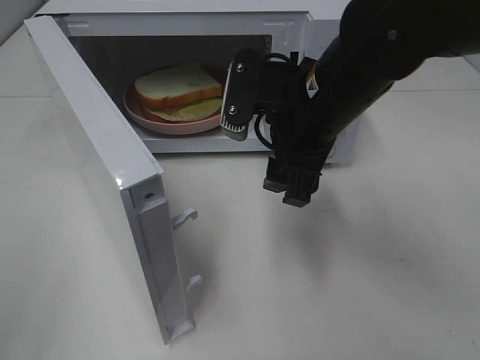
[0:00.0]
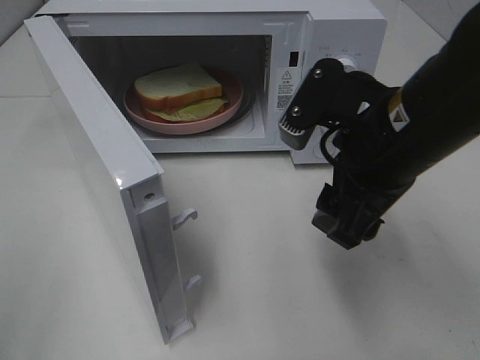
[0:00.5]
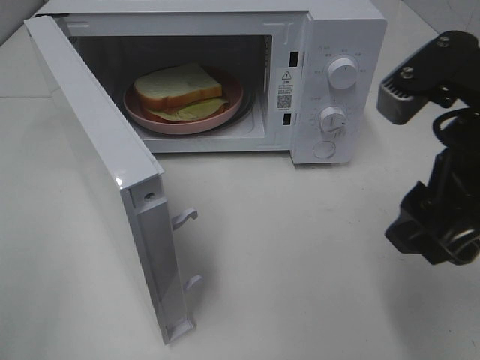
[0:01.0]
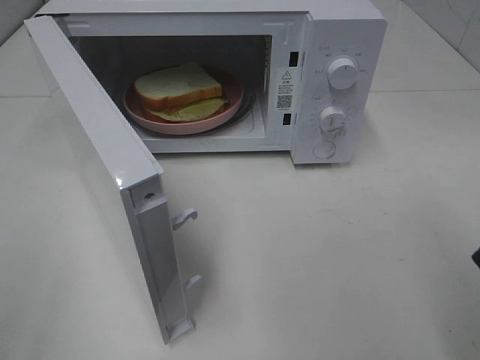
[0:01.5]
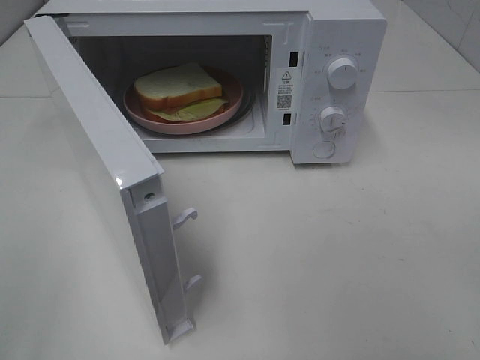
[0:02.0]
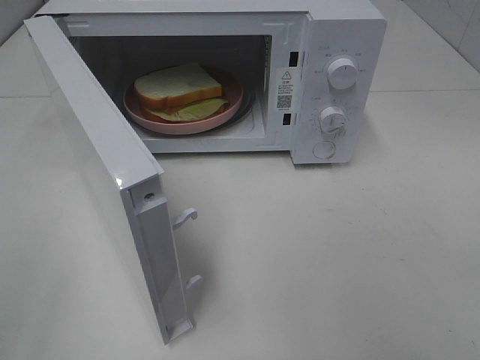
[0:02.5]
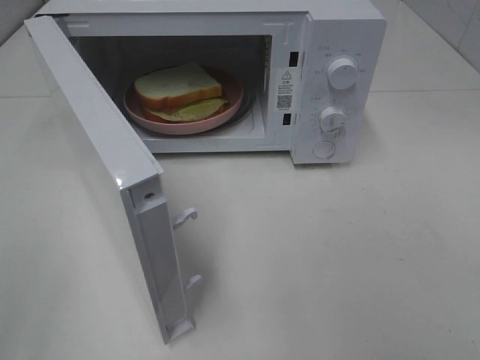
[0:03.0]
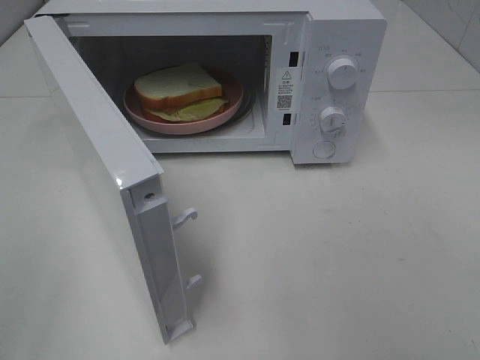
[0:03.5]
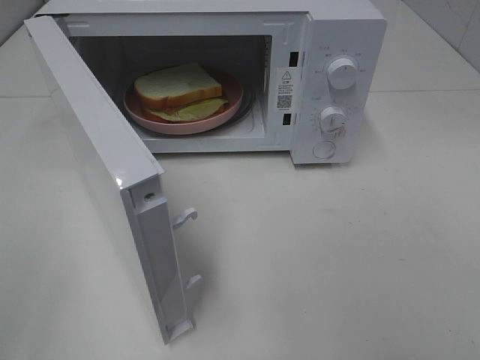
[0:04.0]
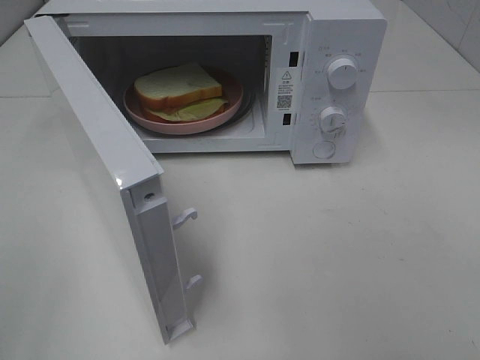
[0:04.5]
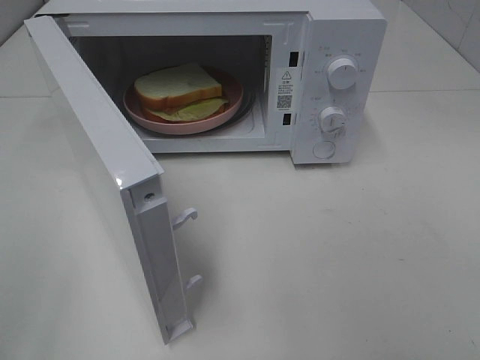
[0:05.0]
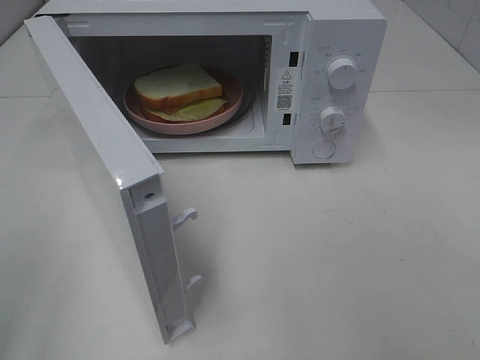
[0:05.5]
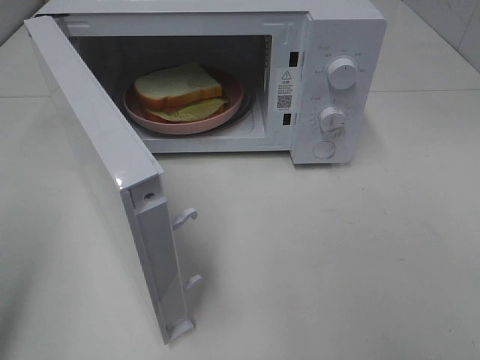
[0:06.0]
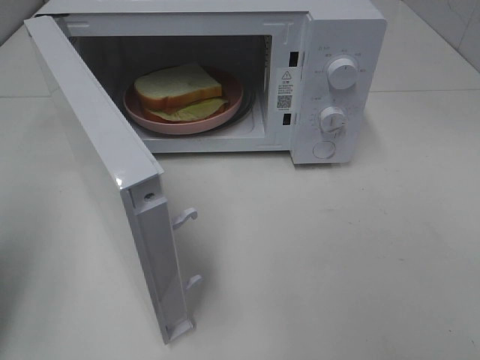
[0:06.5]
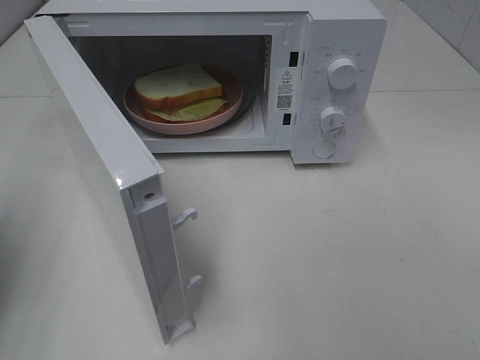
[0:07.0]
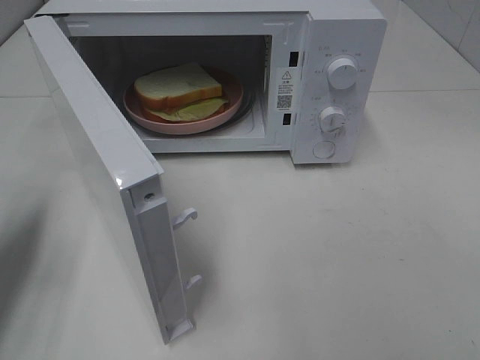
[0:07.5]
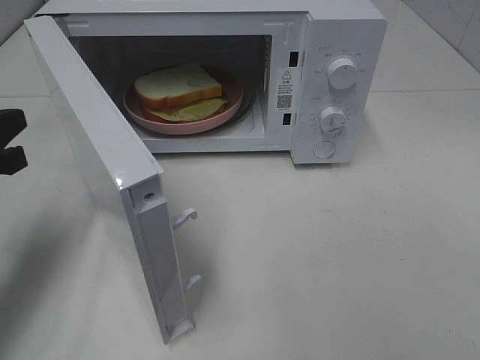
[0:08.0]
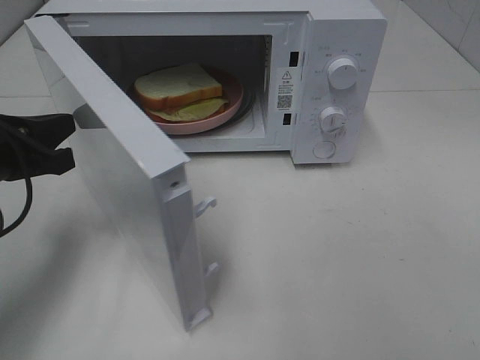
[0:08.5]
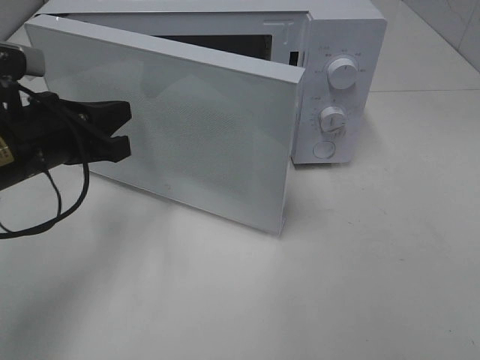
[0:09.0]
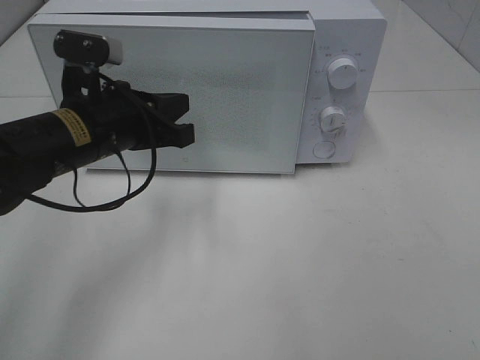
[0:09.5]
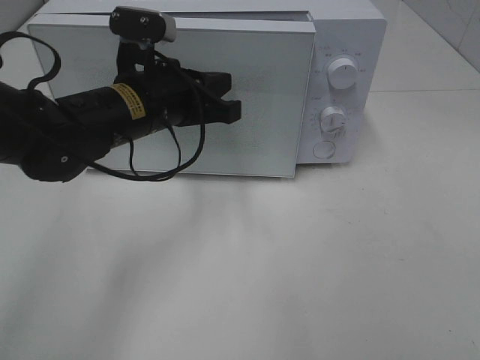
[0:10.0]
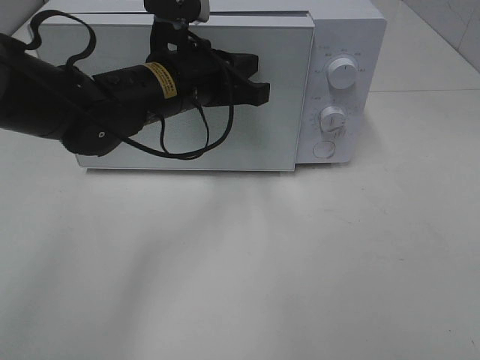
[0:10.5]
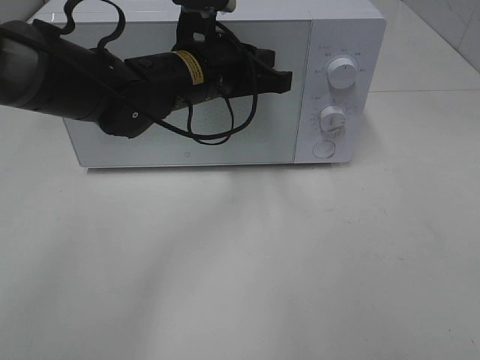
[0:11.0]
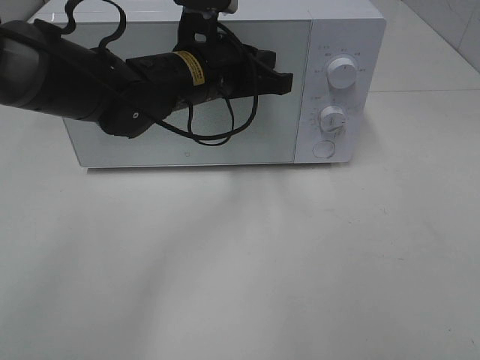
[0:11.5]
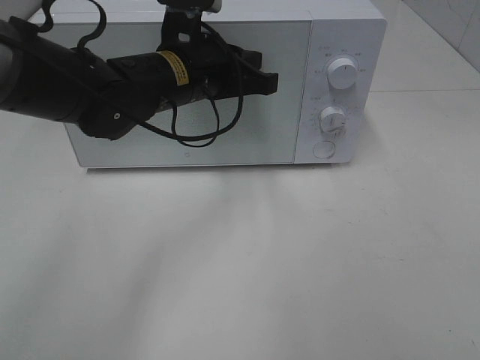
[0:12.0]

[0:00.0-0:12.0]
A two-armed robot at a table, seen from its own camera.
Task of the whole recording: Heat Sandwich.
0:00.0 to 0:02.0: The right gripper goes approximately 25 cm backward and to the right.
0:06.0 to 0:08.0: The left gripper is displaced forward and downward by approximately 20 cm, and closes up.
0:08.0 to 0:10.0: The left gripper heads to the right and forward, covering approximately 20 cm.
0:10.0 to 0:12.0: The left gripper changes place by about 5 cm.

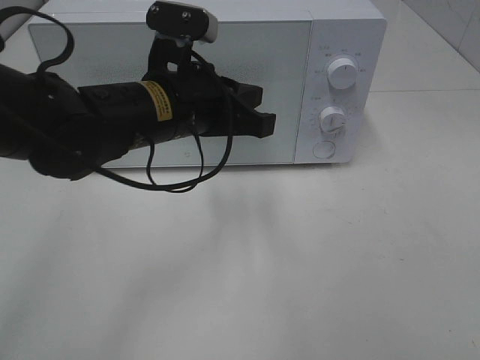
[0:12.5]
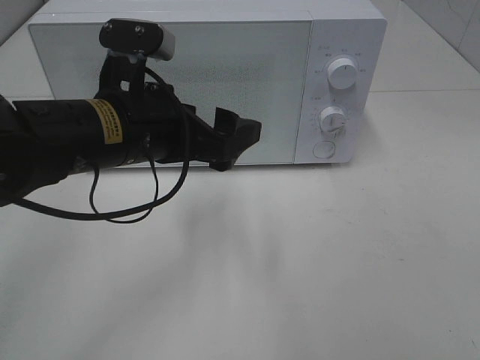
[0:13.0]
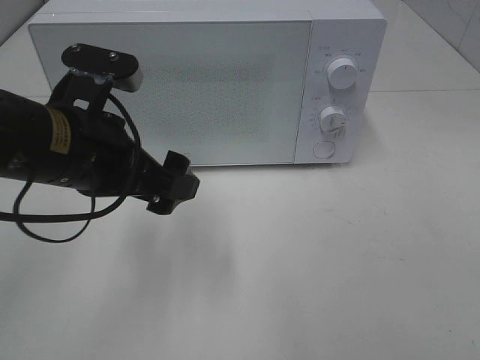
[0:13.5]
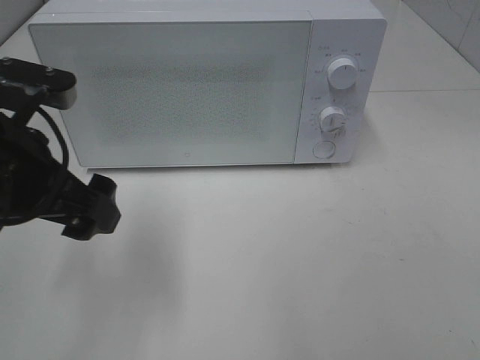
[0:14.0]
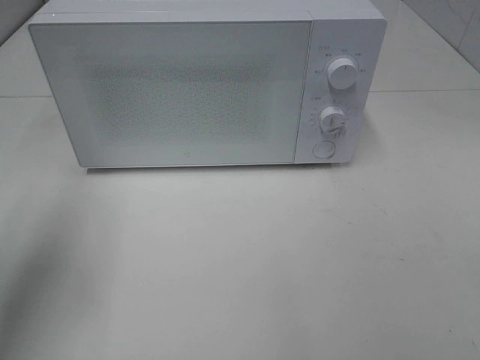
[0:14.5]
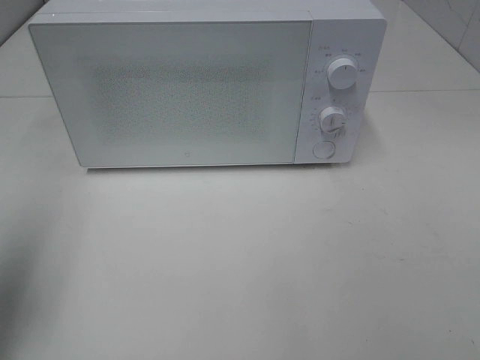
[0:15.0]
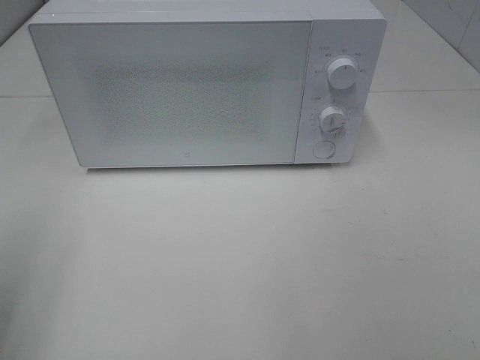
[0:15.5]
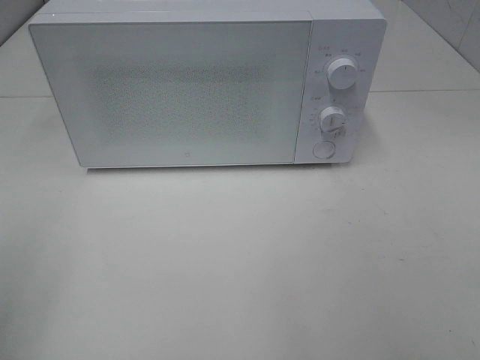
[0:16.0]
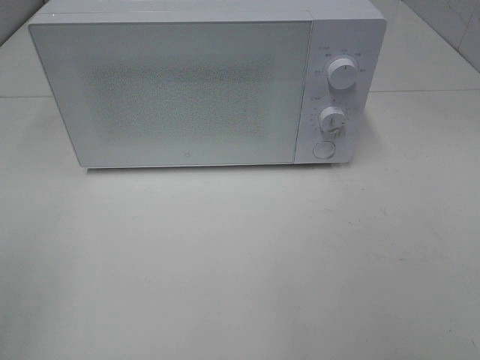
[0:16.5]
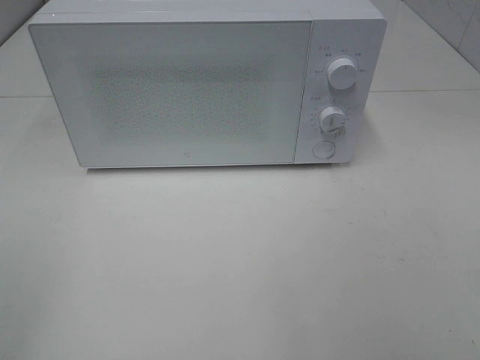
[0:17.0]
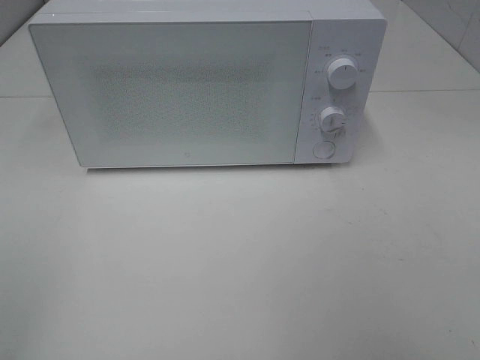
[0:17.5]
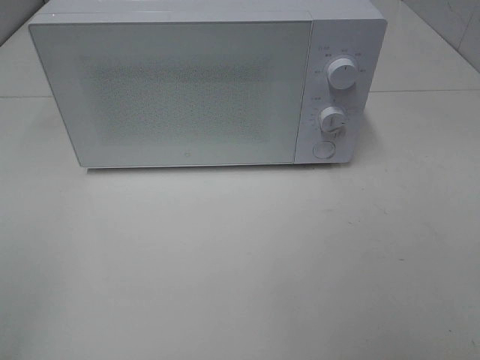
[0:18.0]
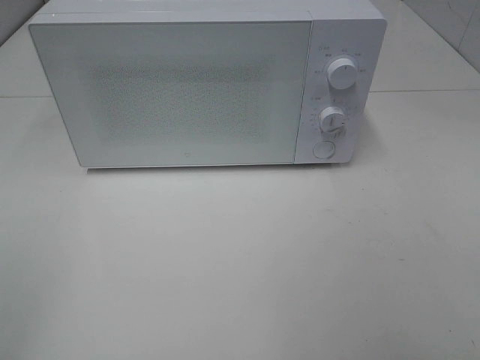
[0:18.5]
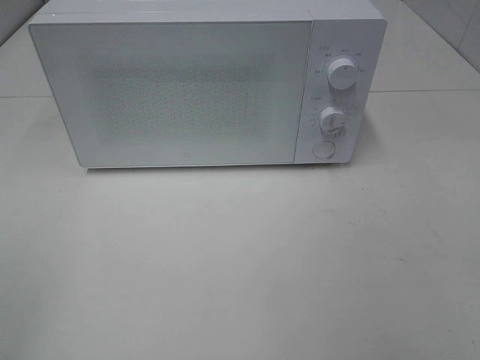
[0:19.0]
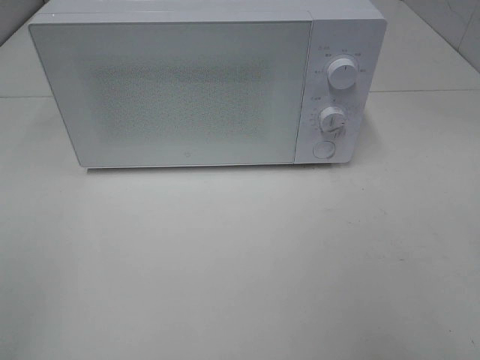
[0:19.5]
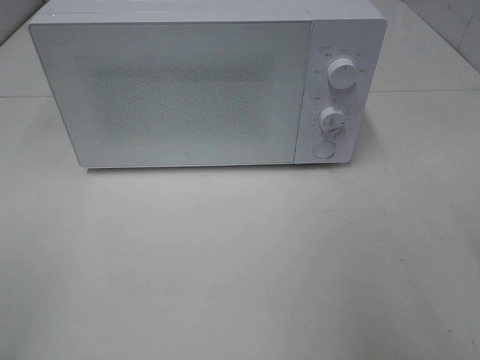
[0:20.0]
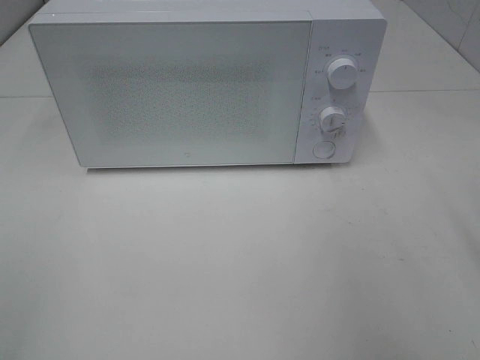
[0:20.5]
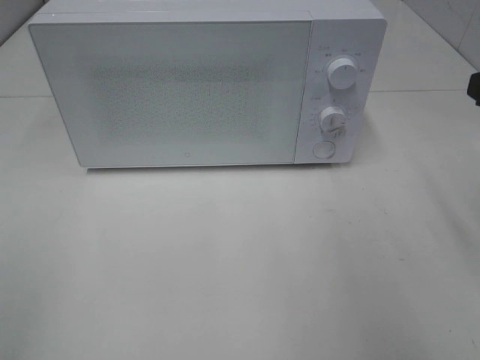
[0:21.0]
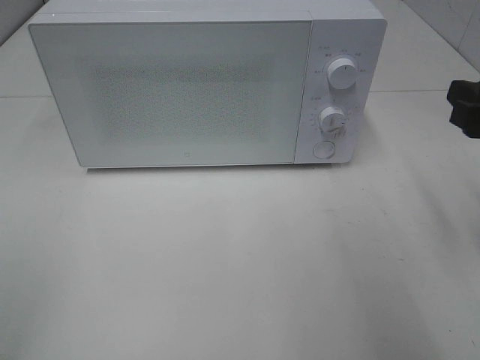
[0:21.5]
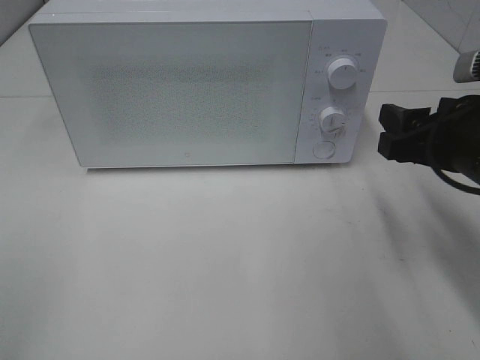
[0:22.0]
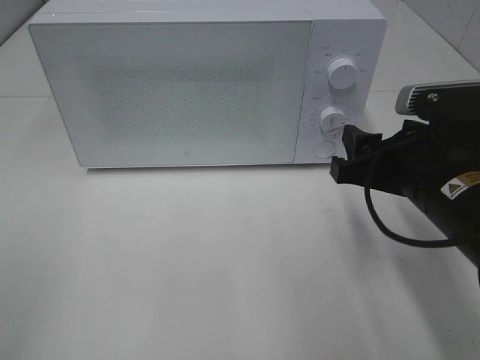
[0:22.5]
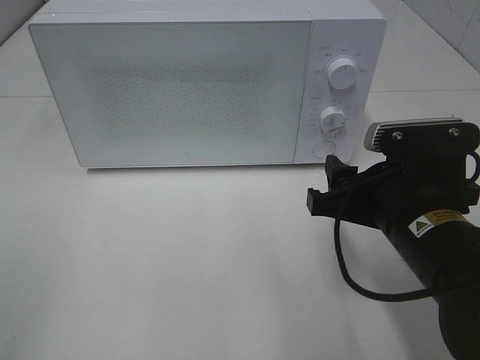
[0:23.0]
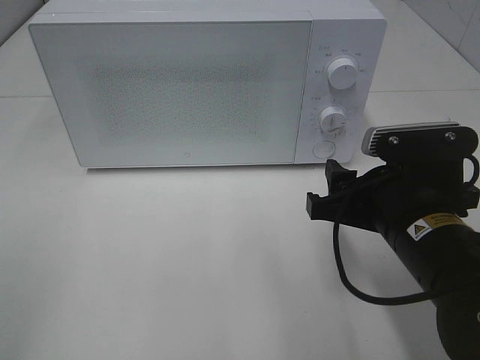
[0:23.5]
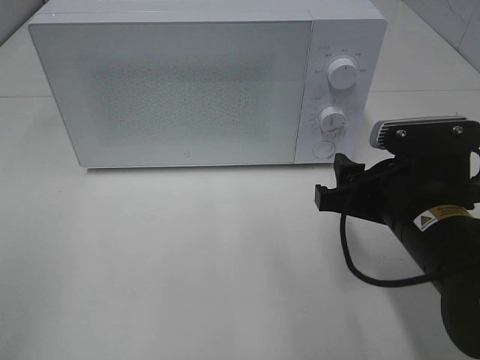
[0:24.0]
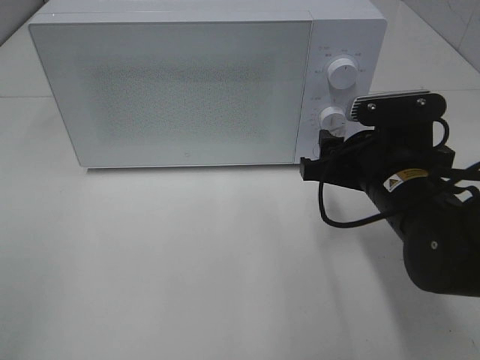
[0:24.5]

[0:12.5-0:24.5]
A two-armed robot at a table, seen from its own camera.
Task of the whole recording: Heat Sandwich.
0:12.5 to 0:14.5: The left gripper moves to the left and backward, about 25 cm, and opens up.
0:14.5 to 0:16.5: The left gripper moves backward, approximately 15 cm.
0:20.5 to 0:22.5: The right gripper goes some 15 cm downward, to the left and forward.
0:22.5 to 0:24.5: The right gripper shifts by approximately 5 cm.

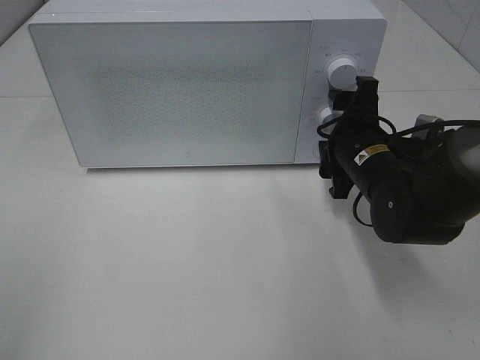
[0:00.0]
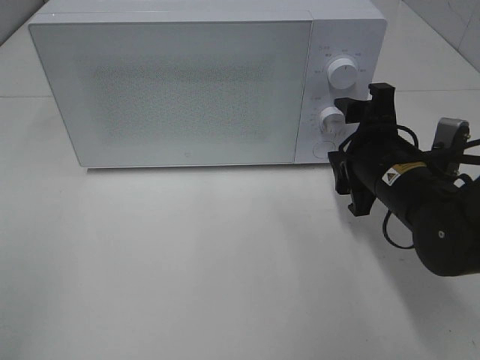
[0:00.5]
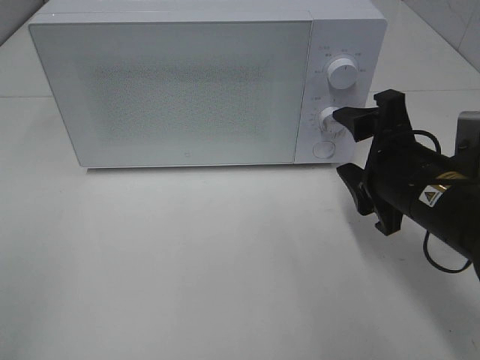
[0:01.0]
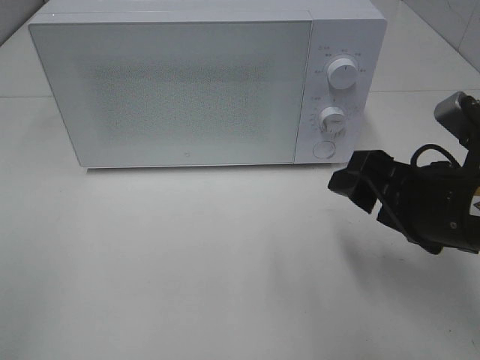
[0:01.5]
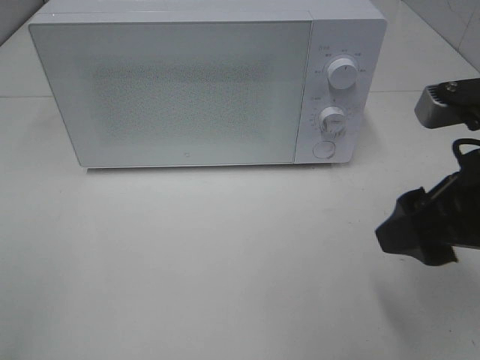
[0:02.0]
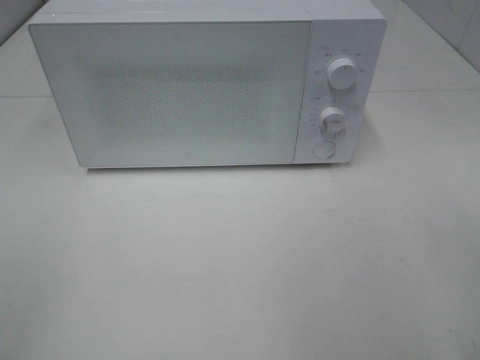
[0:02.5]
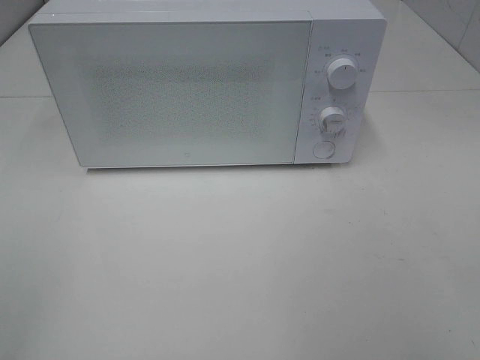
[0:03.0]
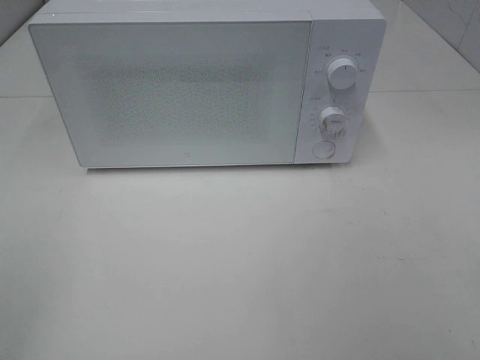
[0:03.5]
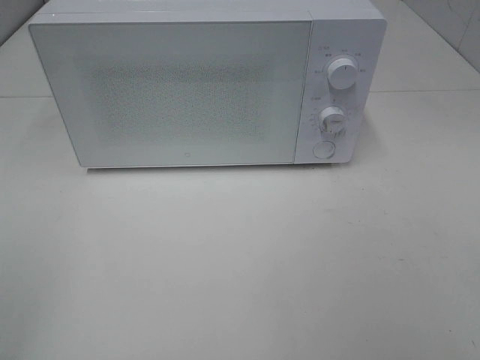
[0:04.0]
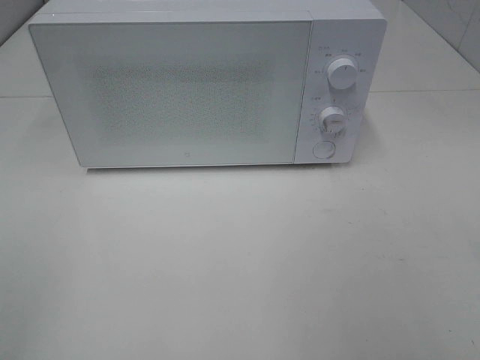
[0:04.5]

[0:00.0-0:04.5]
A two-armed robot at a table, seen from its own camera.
Task of the whole recording: Heat Sandwich.
0:00.0 to 0:02.0: The right gripper heads backward and upward, covering about 20 cm.
0:02.0 to 0:04.5: The right gripper travels backward, to the right and upward by approximately 15 cm.
